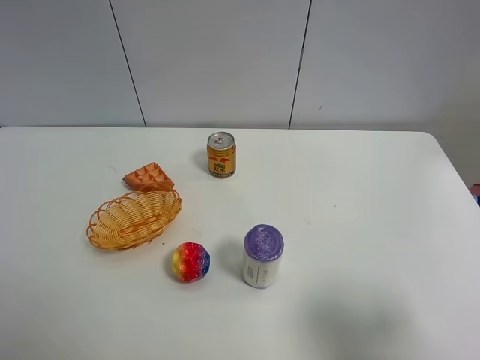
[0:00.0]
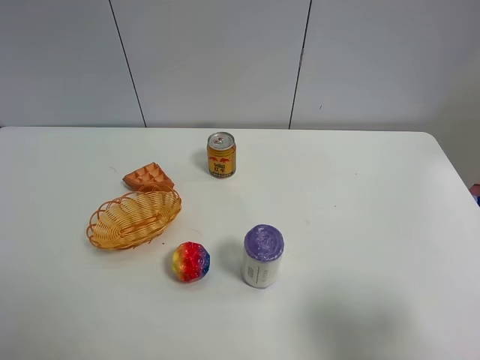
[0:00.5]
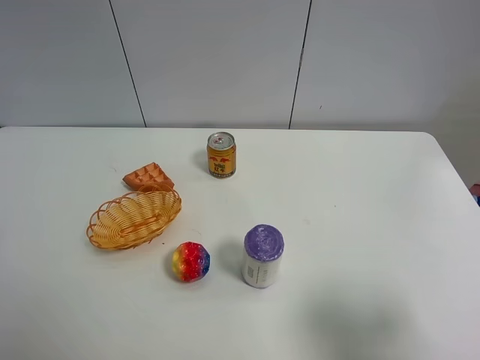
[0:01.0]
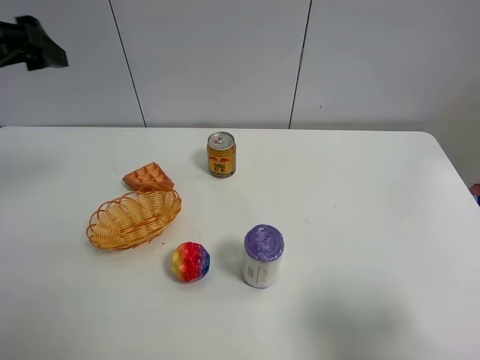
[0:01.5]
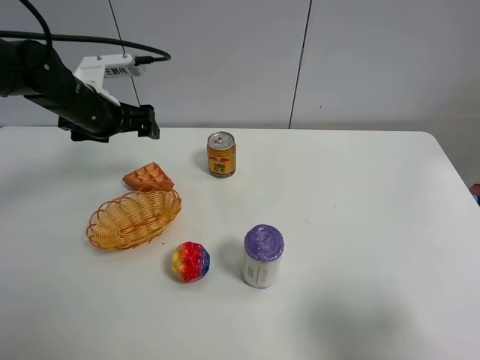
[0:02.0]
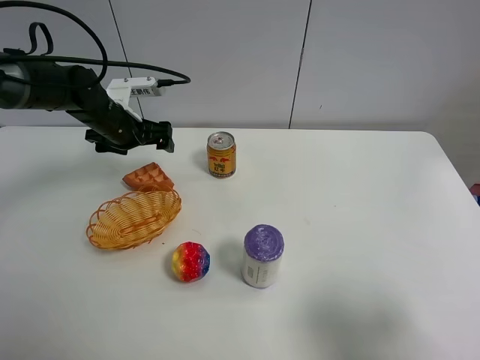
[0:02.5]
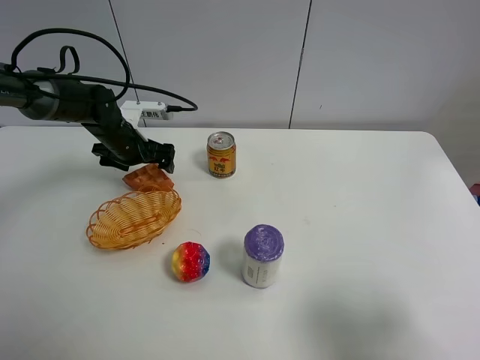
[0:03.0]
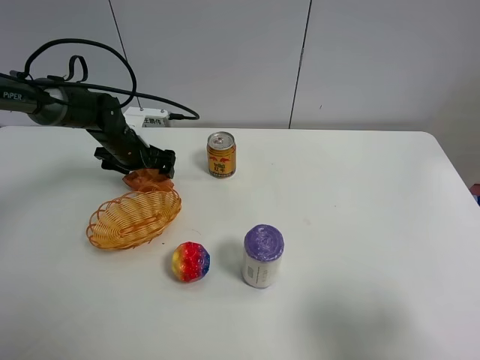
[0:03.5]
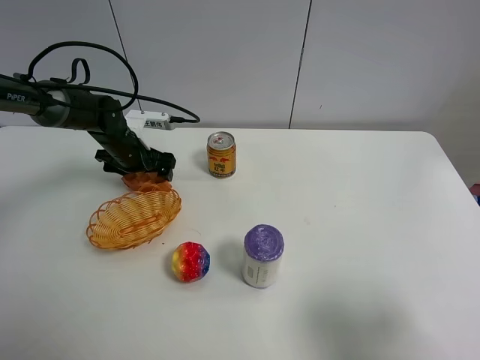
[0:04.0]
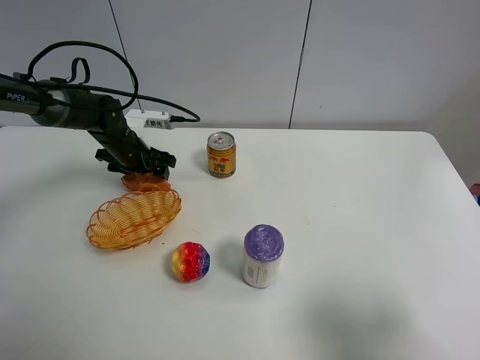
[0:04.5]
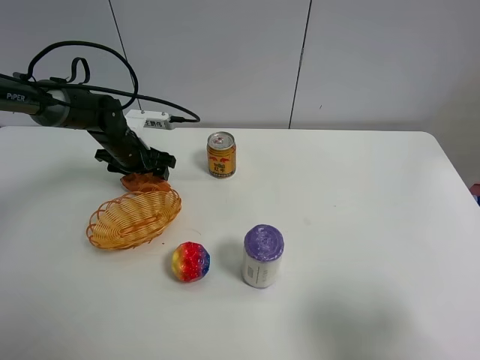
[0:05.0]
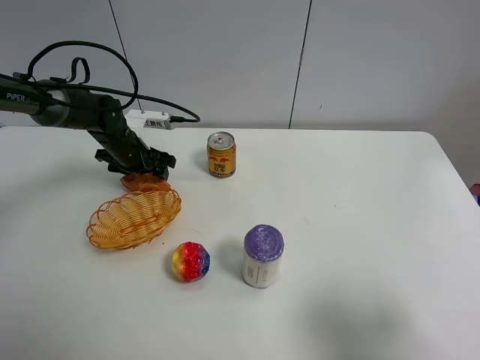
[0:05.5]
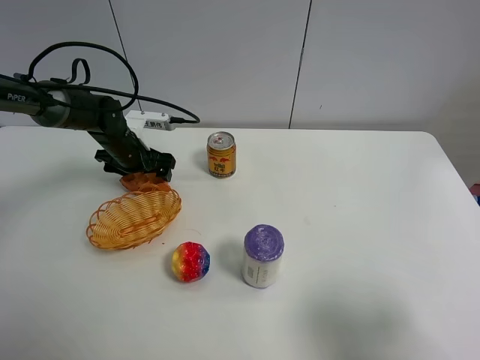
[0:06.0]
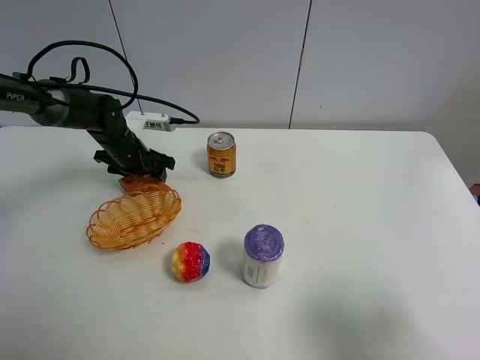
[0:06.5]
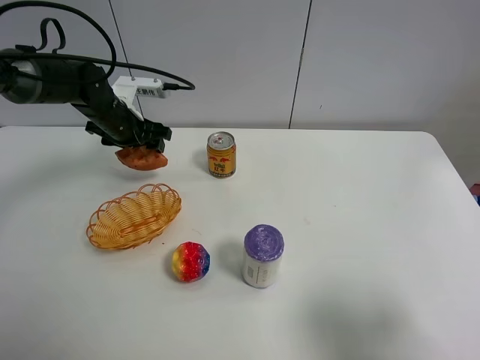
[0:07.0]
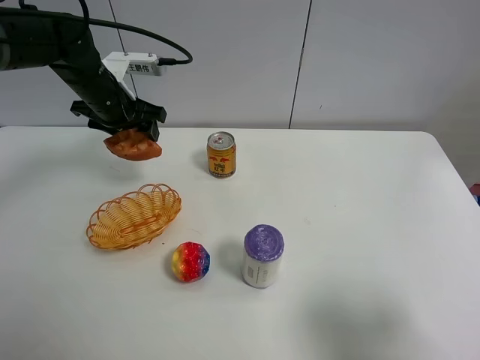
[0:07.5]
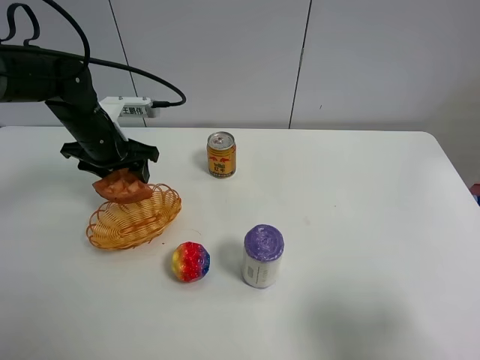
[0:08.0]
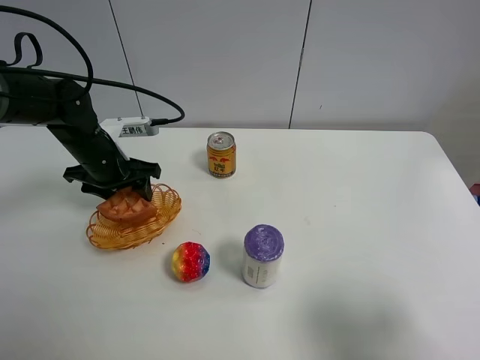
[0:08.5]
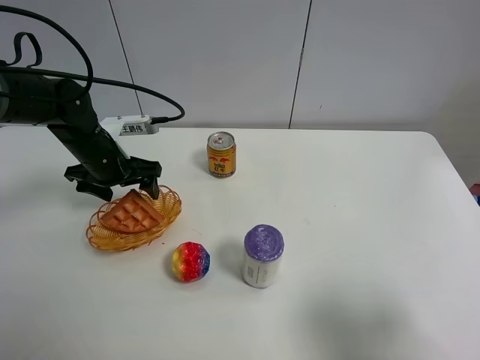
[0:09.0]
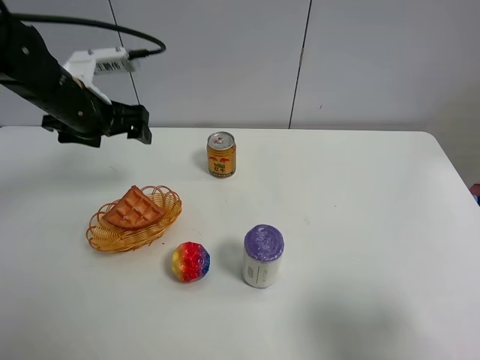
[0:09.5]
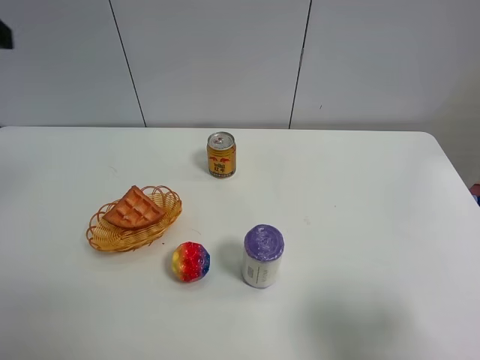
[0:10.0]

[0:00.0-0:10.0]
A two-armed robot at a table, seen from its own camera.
Task of the whole recording: Put the bakery in the basket.
0:00.0 to 0:02.0: The left gripper travels forward by approximately 40 cm.
0:02.0 to 0:04.0: The left gripper shifts roughly 10 cm downward, and closes its fingers.
0:06.0 to 0:08.0: The left gripper moves upward and backward, approximately 10 cm, and closes up.
0:08.0 to 0:10.0: The left gripper goes some 30 cm upward and backward, and opens its fingers.

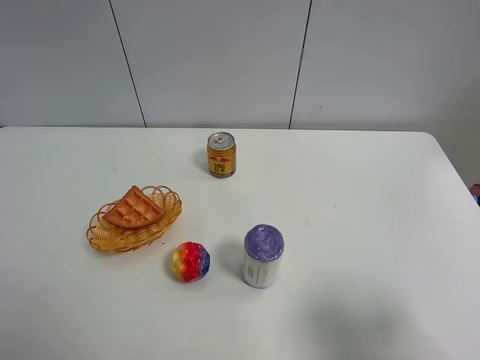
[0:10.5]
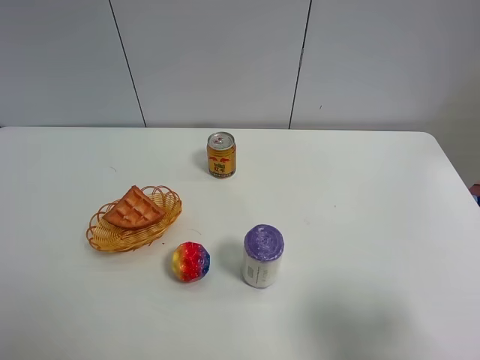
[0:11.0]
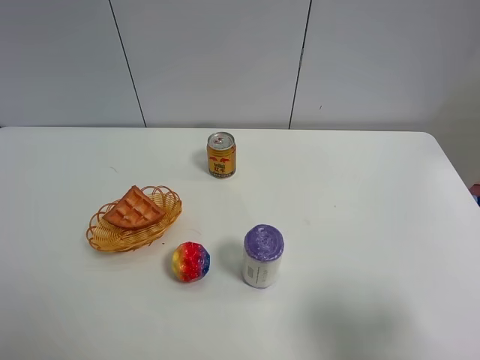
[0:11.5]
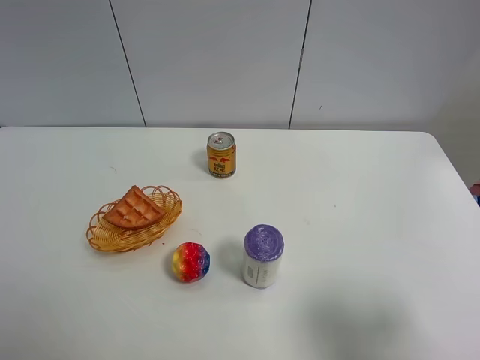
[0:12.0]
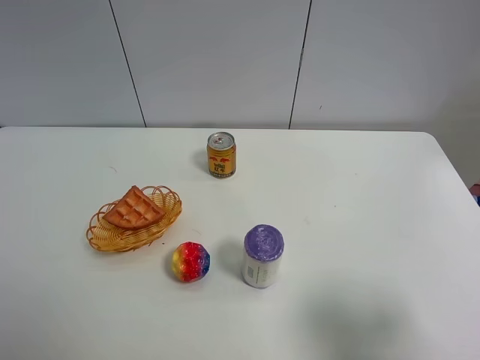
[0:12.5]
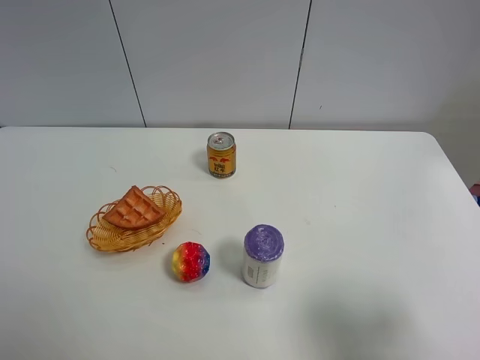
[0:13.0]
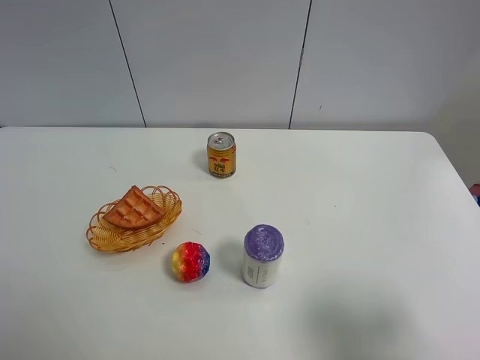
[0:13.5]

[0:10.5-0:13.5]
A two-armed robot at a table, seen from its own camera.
Task of the whole recording: Put the bakery in the basket.
0:12.0 to 0:13.5: Both grippers stay put.
